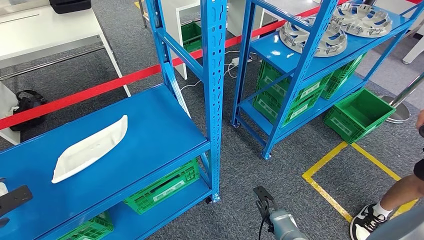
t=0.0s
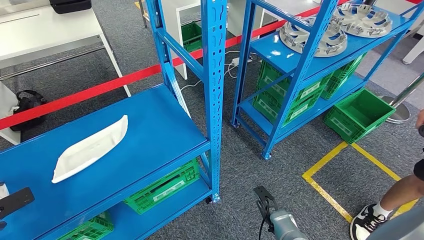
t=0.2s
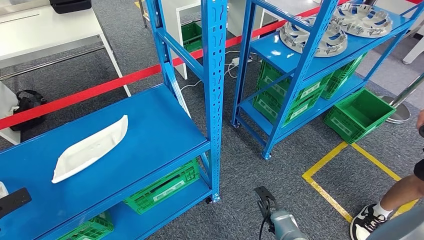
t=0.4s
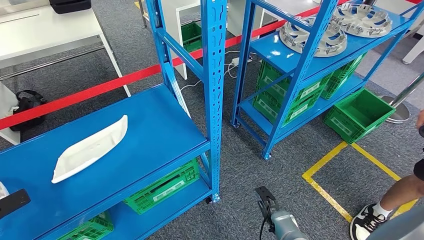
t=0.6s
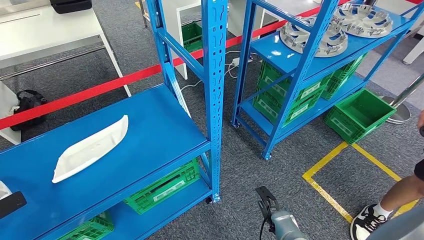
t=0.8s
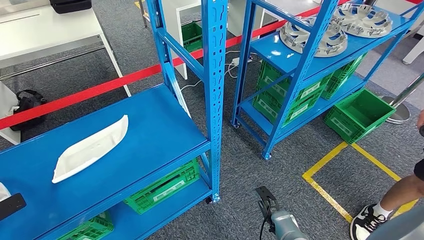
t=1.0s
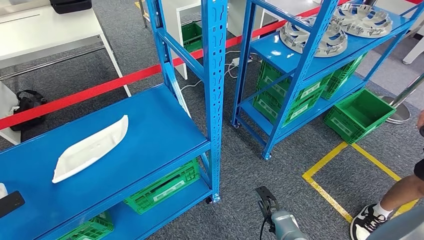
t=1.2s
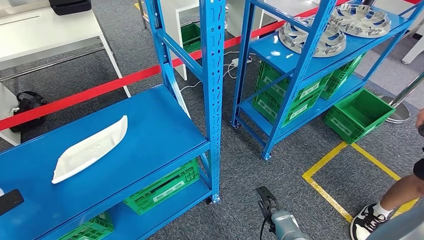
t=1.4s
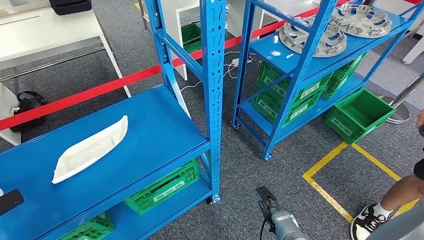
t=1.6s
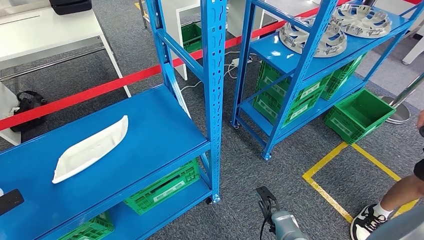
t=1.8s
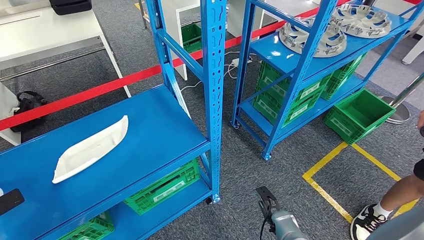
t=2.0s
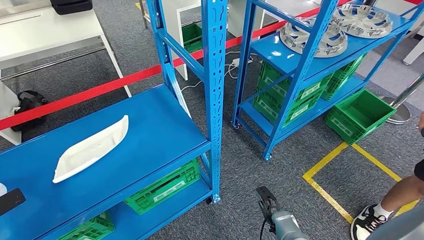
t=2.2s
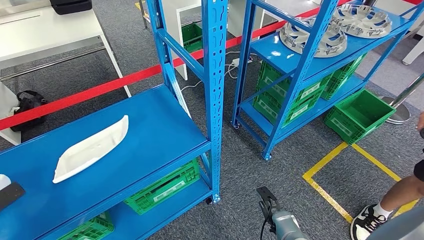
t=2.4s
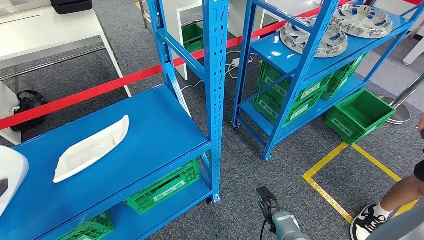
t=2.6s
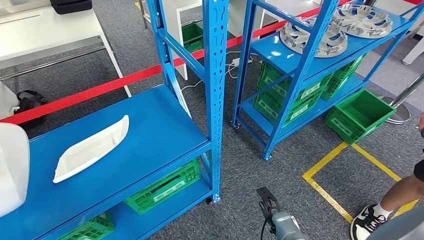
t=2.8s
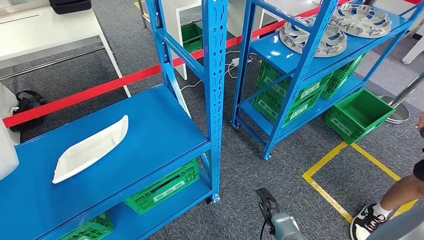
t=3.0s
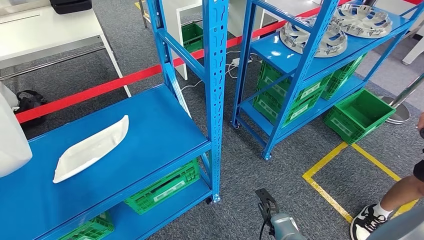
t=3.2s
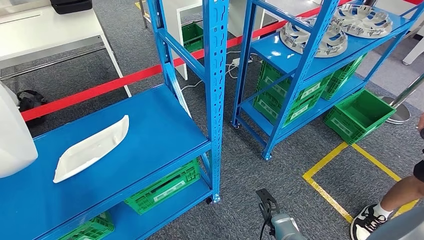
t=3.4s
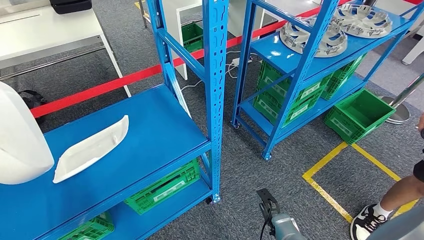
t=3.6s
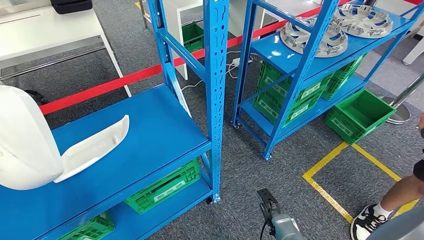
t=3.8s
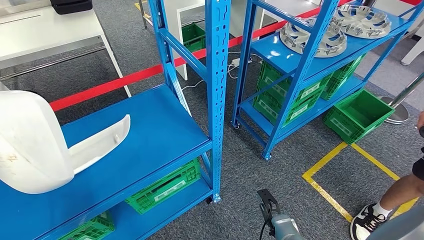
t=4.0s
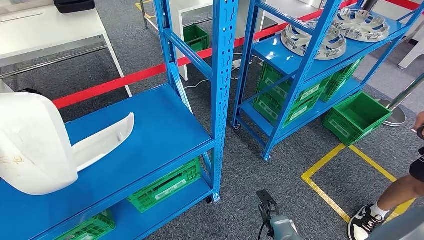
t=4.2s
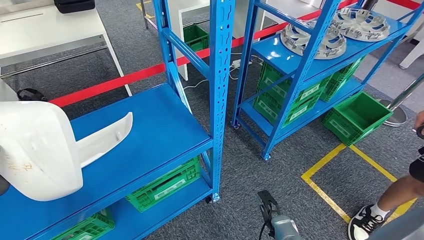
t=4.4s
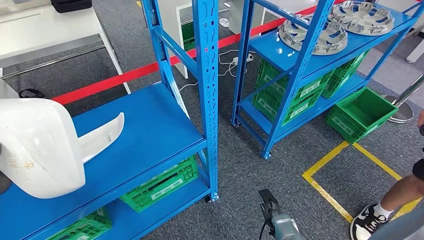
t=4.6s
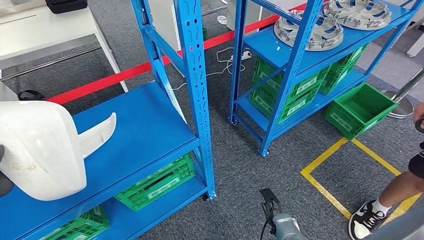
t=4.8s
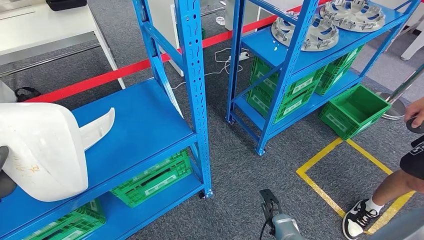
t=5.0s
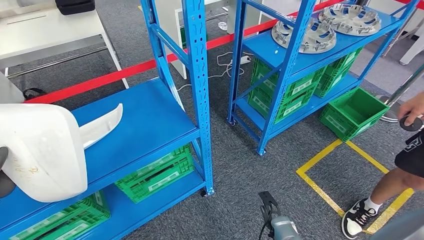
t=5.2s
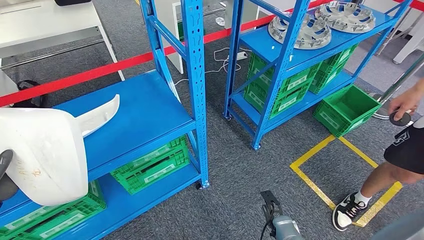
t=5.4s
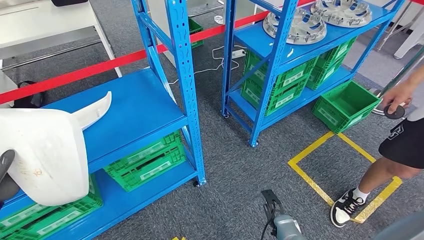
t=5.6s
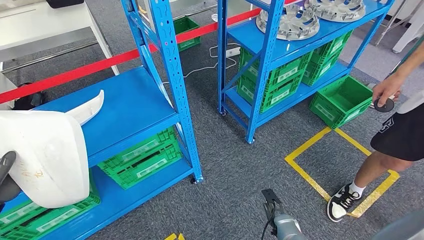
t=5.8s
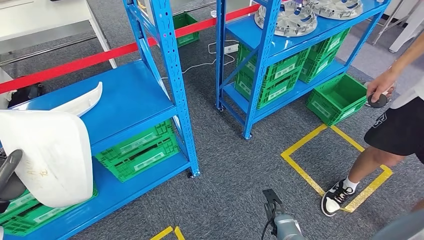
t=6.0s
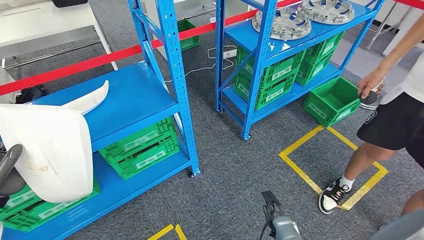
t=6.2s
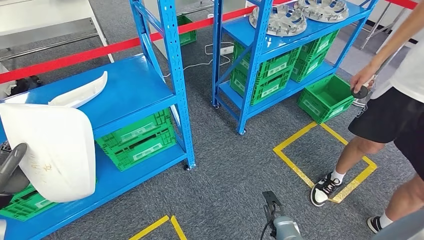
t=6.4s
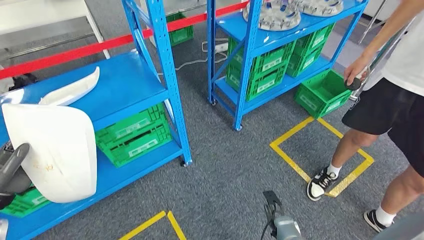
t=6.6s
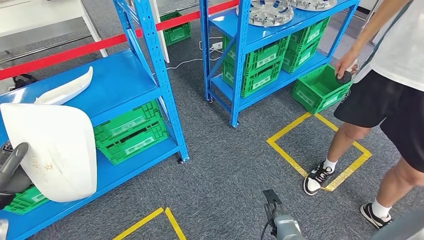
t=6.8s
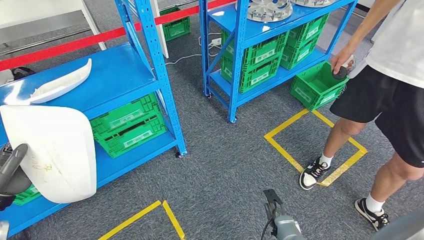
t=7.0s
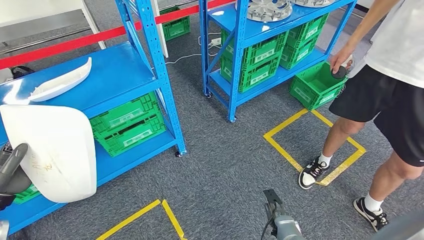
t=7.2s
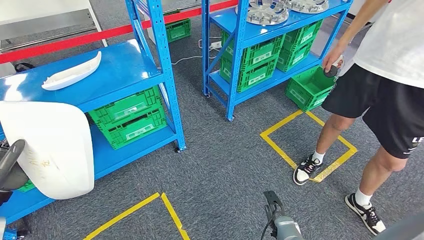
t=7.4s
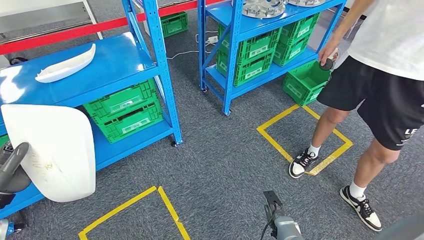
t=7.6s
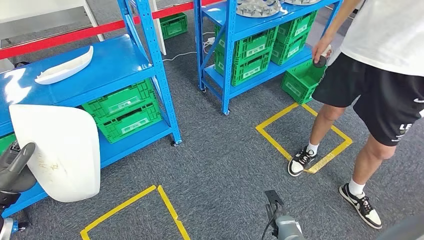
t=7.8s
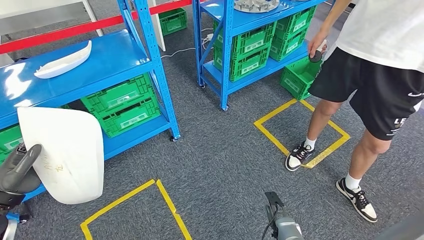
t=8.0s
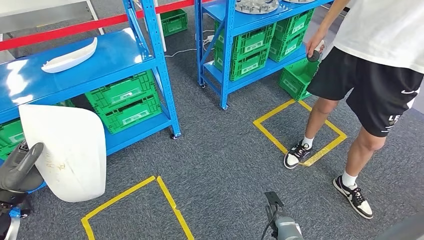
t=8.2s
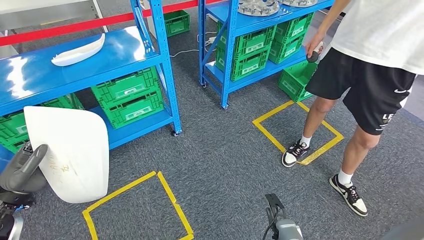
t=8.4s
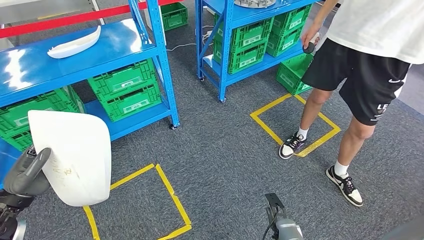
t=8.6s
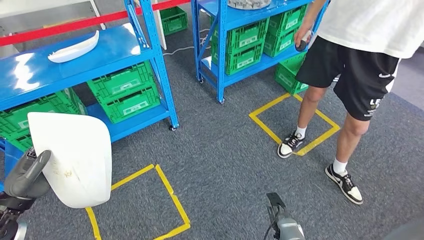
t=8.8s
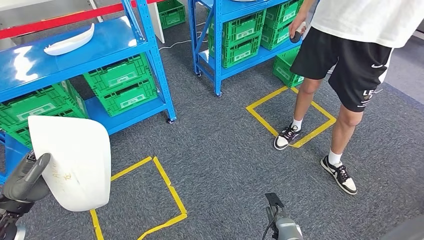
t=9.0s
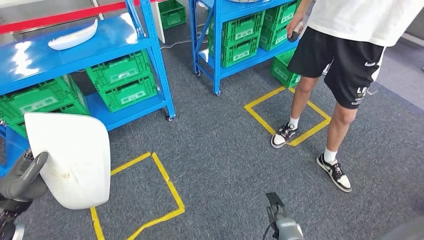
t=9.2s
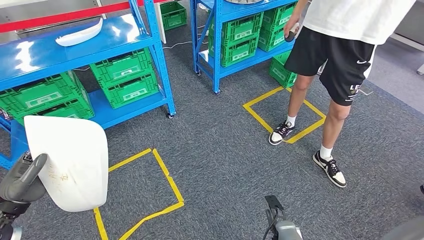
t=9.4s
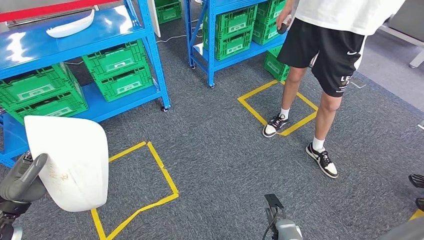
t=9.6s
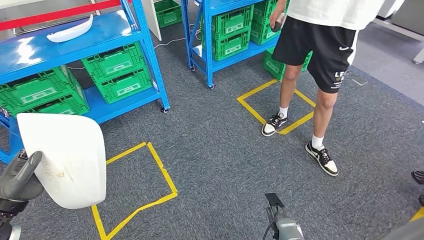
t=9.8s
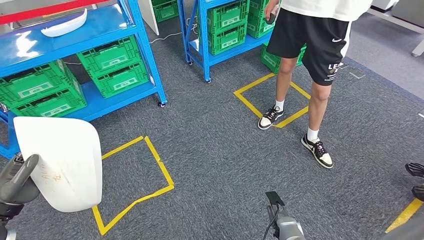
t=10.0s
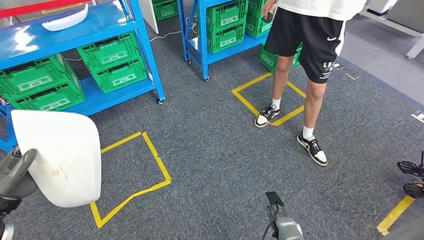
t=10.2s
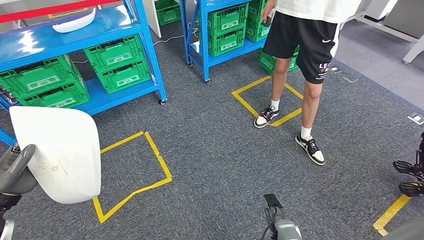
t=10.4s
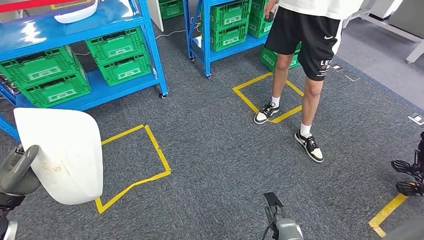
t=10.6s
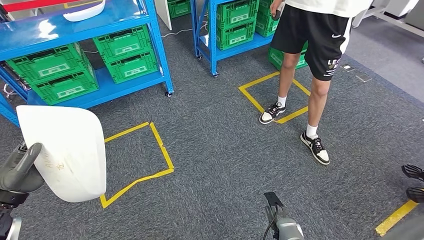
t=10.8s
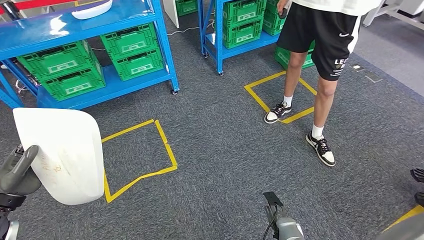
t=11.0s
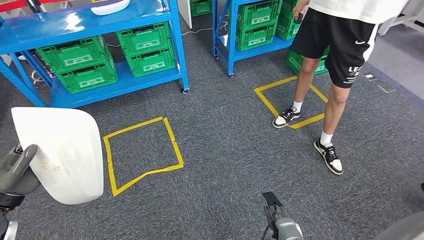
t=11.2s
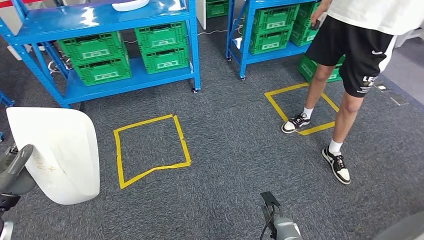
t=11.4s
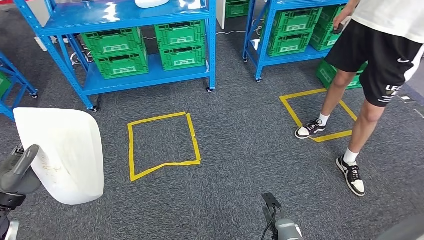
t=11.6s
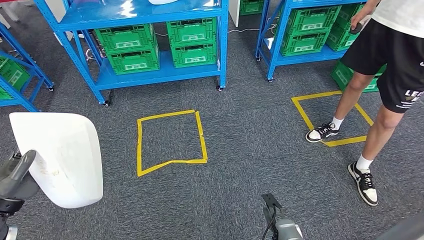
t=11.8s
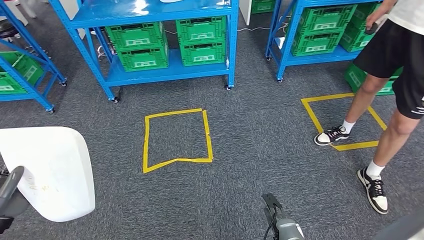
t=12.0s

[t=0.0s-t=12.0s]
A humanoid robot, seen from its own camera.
Step, t=0.0s to t=3.0s: Pick up the small component from the shelf.
t=0.0s to t=1.6s: The hands move only a little.
t=1.6s to t=3.0s: The left hand shifts roughly 10 cm upward and to the right.

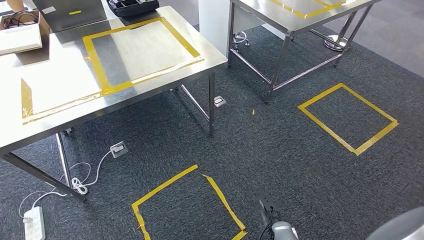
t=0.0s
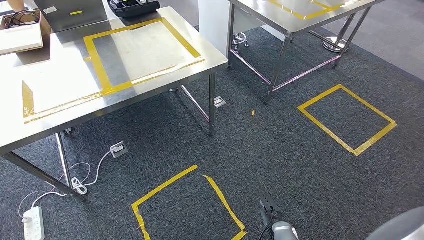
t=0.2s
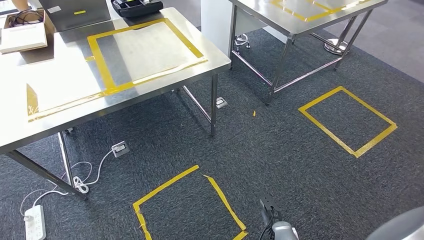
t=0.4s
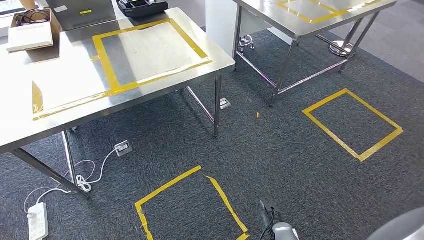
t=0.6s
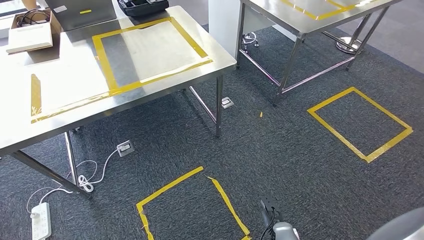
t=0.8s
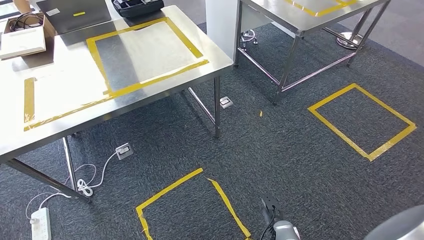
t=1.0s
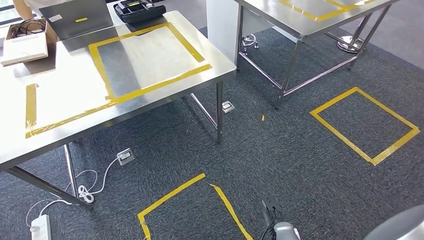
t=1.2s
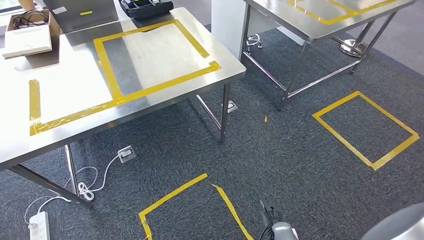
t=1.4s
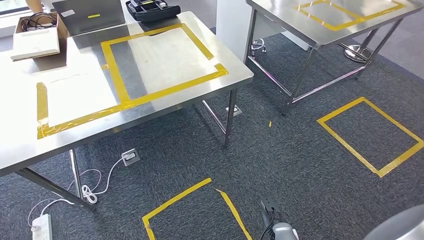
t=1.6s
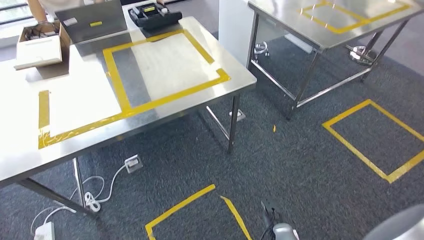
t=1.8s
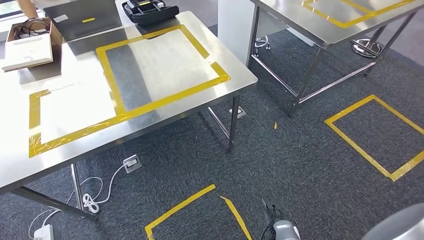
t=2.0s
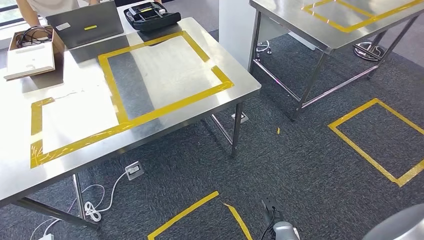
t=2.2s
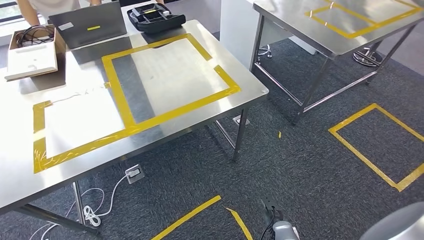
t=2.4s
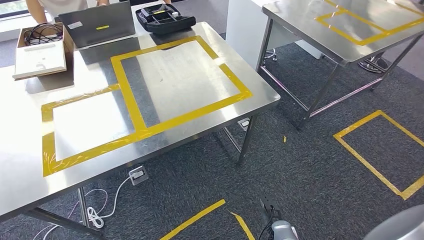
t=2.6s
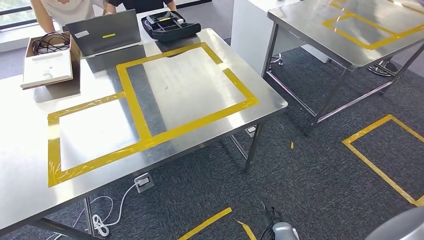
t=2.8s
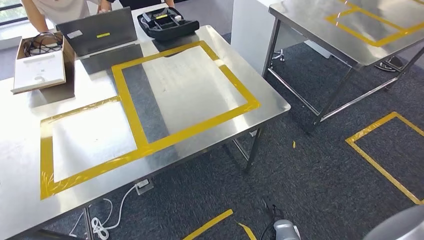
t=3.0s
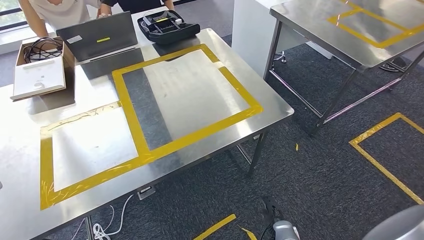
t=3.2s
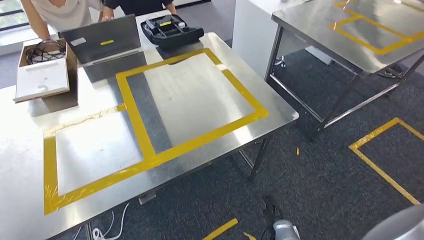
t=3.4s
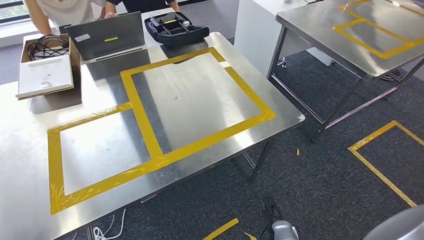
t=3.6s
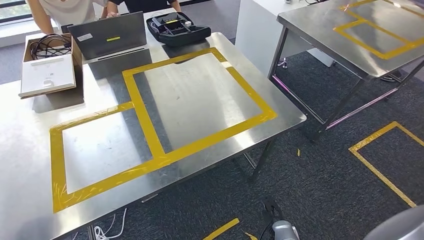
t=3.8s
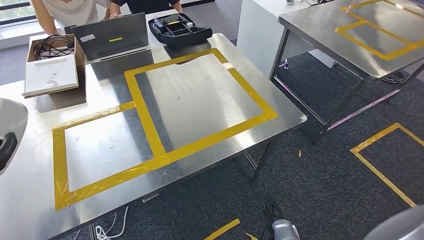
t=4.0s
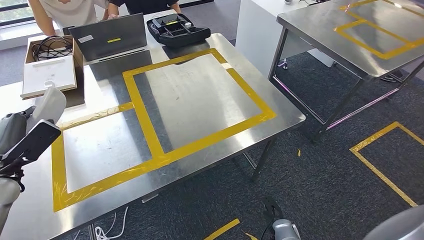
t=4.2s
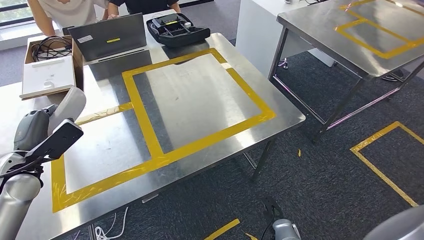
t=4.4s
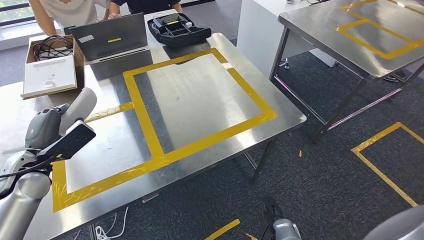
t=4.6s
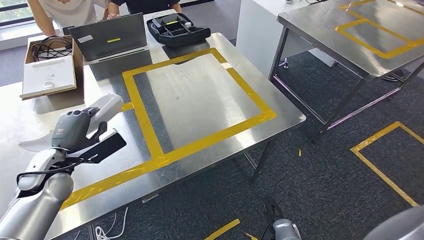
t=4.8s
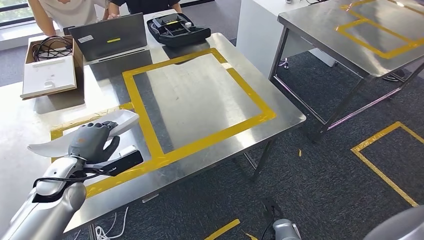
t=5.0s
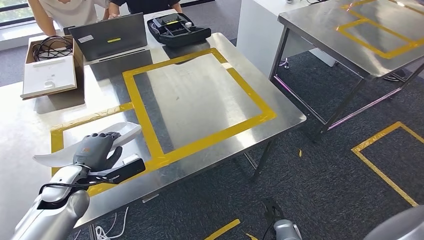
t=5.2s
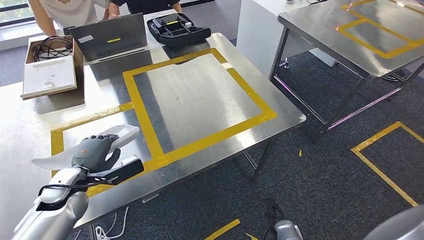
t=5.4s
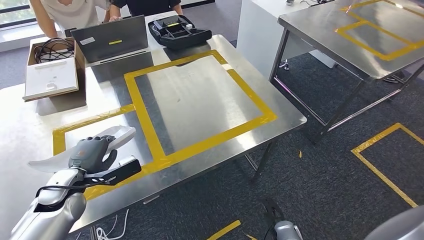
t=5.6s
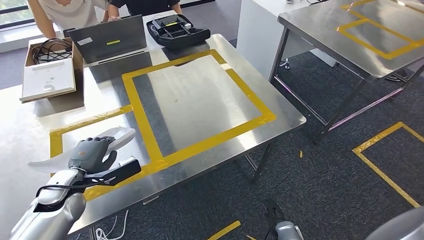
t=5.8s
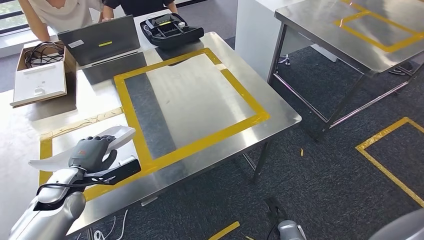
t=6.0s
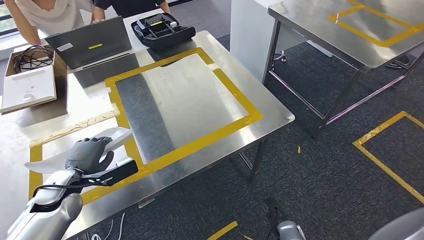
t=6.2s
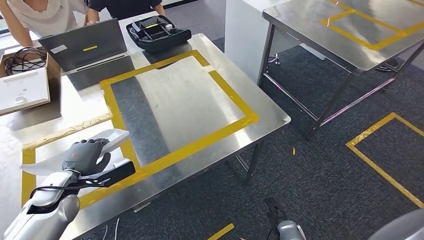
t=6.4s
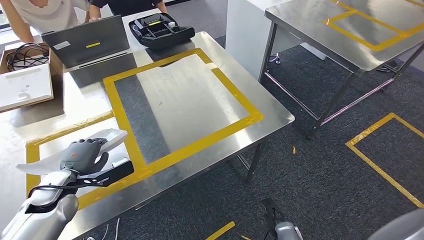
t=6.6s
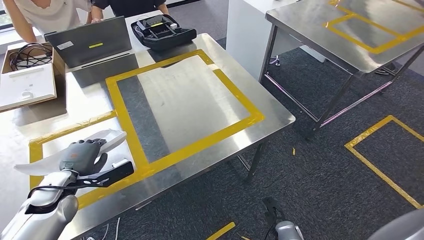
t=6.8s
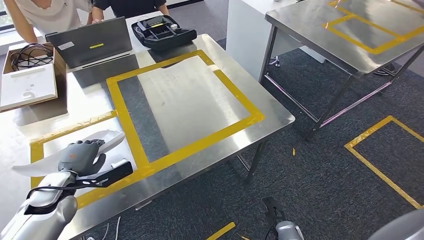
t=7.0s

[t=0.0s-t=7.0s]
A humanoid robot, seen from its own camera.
Step, t=0.0s to t=3.4s: Move the small component to the workbench.
